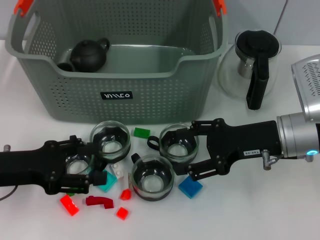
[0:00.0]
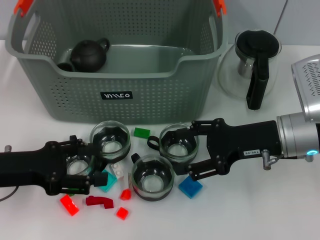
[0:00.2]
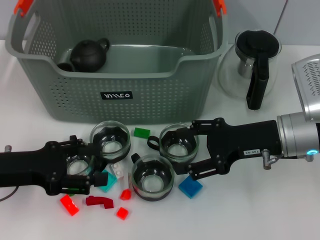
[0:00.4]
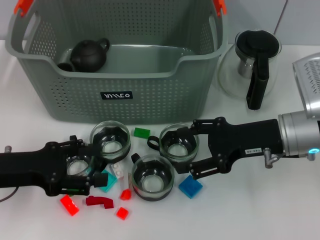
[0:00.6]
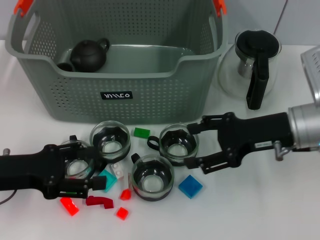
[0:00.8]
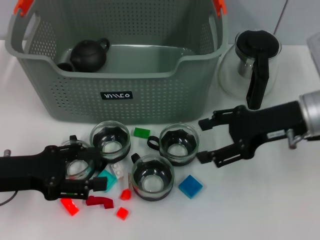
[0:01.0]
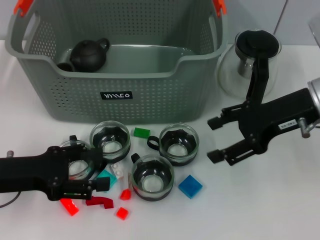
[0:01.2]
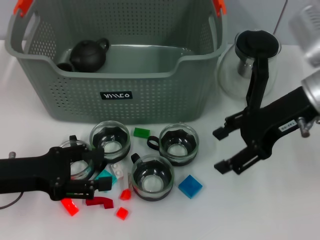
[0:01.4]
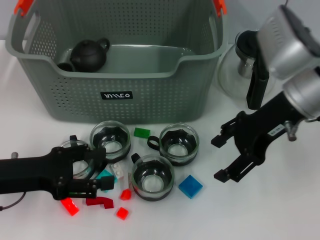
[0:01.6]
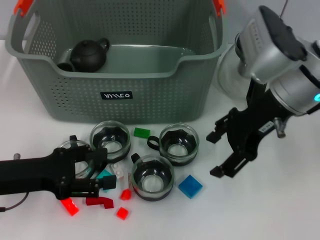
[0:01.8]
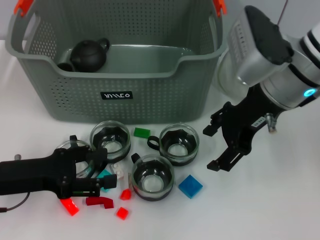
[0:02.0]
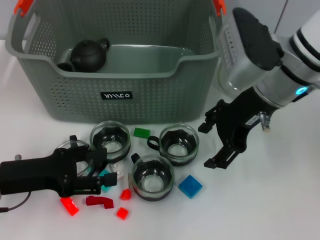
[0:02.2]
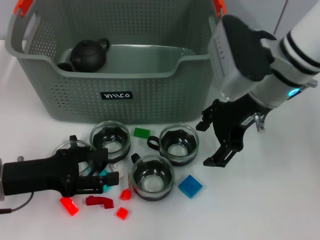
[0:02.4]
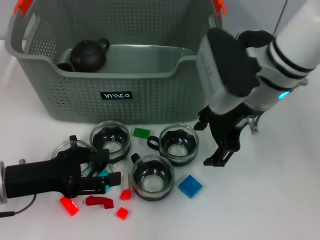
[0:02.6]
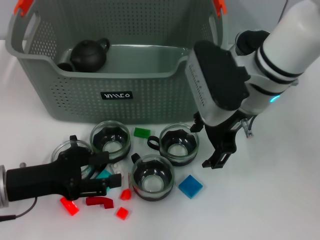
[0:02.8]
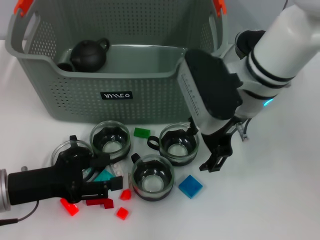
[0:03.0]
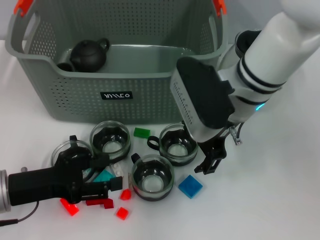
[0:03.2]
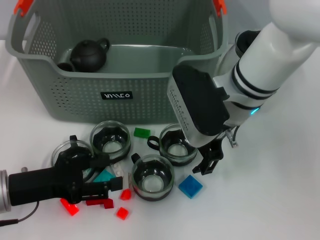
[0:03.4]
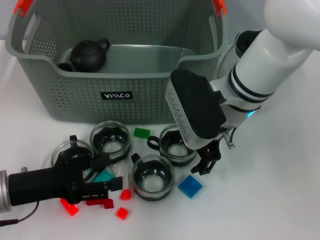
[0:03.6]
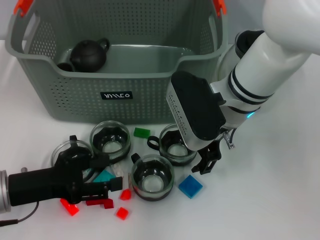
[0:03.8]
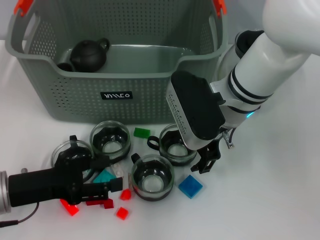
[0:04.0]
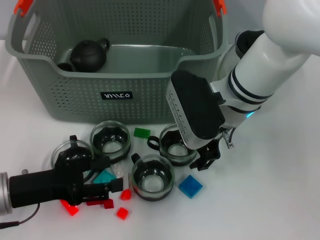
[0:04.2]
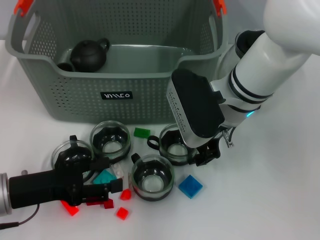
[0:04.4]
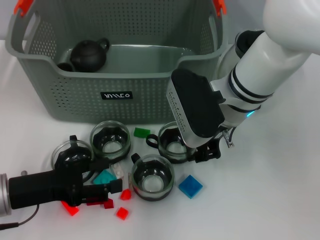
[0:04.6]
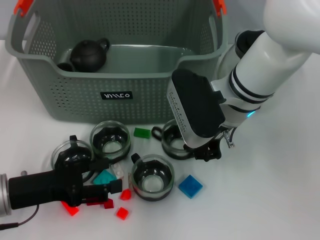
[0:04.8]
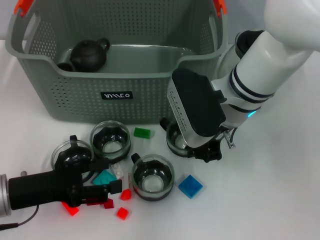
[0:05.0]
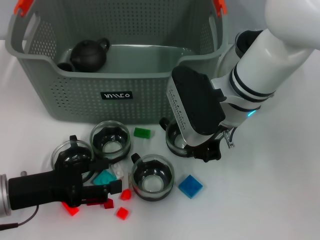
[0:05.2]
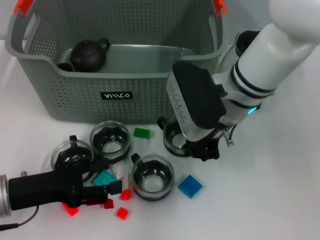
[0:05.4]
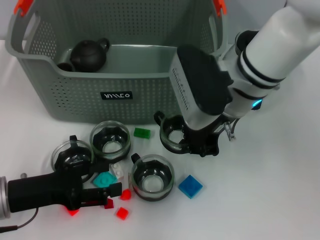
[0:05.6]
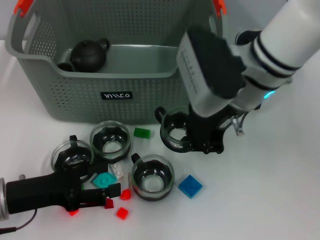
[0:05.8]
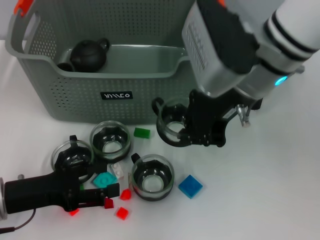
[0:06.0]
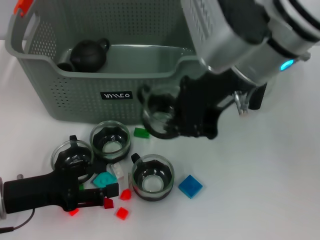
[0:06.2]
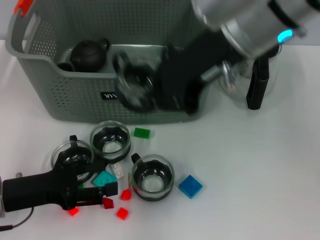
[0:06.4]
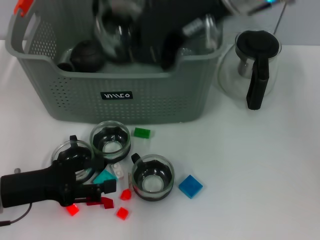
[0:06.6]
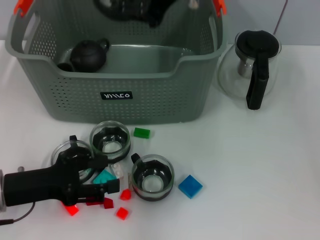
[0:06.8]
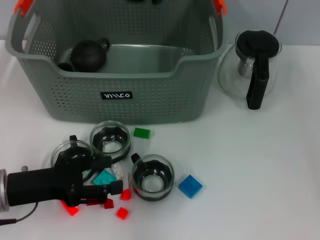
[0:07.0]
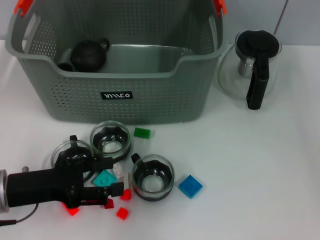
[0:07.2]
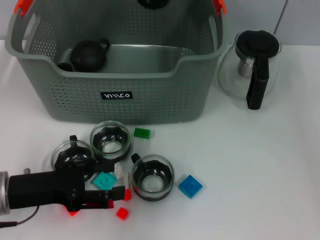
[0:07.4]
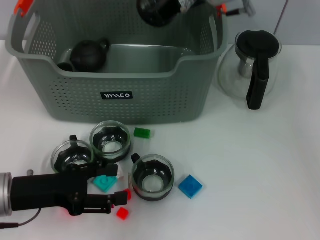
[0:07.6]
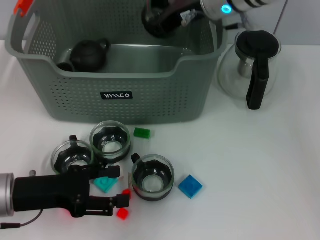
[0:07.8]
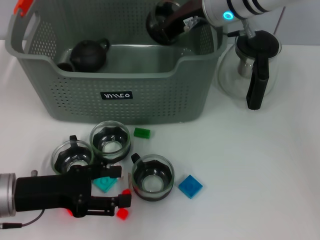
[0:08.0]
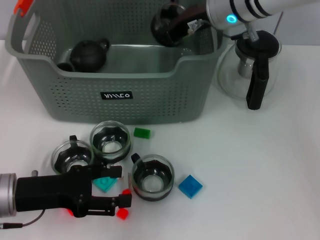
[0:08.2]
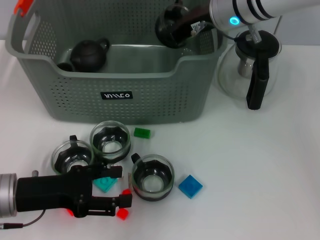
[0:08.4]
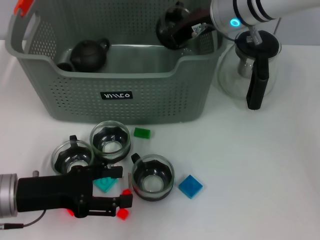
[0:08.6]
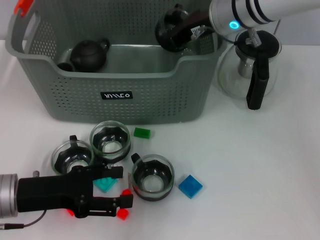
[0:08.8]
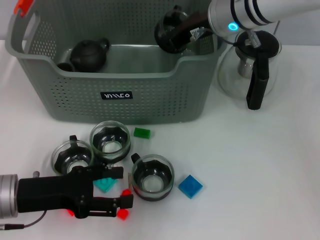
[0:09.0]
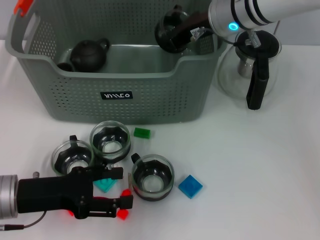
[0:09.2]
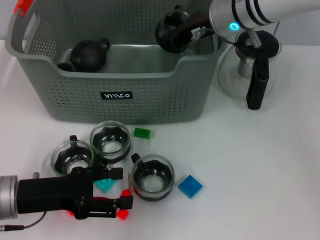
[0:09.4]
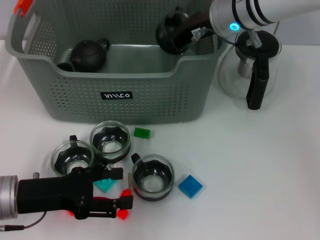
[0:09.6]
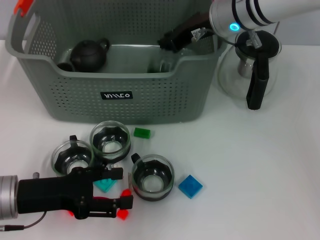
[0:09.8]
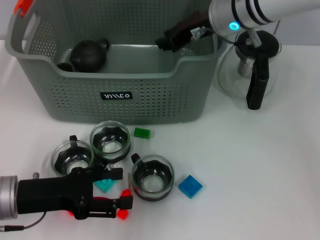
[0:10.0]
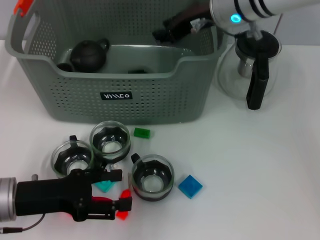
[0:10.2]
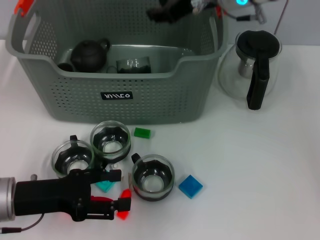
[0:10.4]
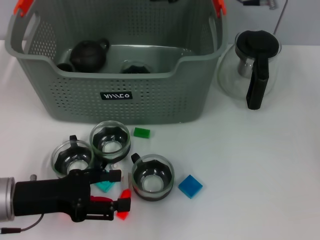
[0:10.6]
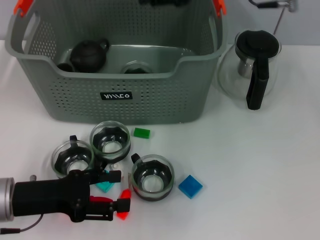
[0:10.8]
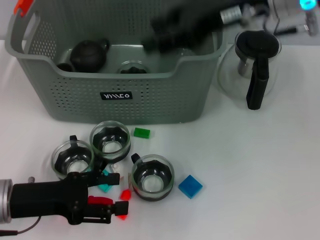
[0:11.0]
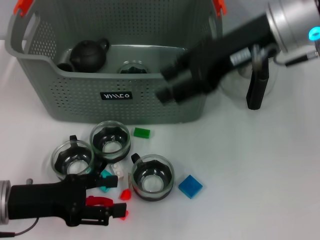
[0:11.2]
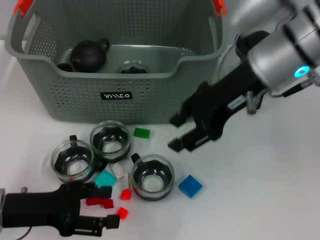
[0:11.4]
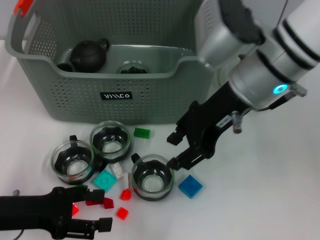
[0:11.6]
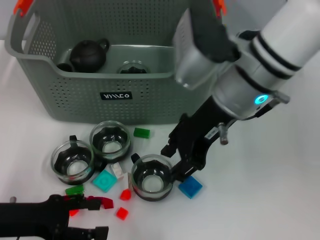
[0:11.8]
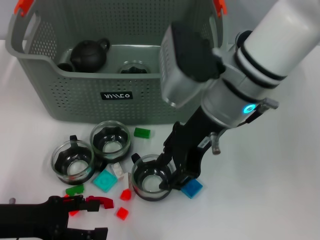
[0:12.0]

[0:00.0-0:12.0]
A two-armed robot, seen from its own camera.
Task of the whole recording: pick up the teacup on the table and place it into the storage bin, pick up the block on the table and place it into the storage bin.
Step, 0:00.0 to 0:05.4: Grasp the cup with right gripper.
Step, 0:05.8 to 0:10.0: Place the cup in the storage box with right gripper.
0:00.0 to 0:01.6: The right gripper is displaced upward by about 10 cm.
0:01.6 to 0:03.0: The right gripper travels to the left by roughly 10 cm.
0:03.0 to 0:04.4: The grippers make only small movements.
0:04.4 to 0:06.0: The right gripper is displaced upward by about 10 cm, and closes up.
0:06.0 to 0:07.6: The right gripper shifts roughly 10 cm forward.
0:07.6 to 0:10.4: The grippers move only a little.
0:10.4 to 0:12.0: The right gripper goes approximately 10 cm backward.

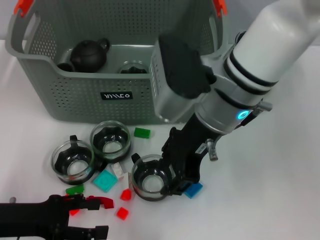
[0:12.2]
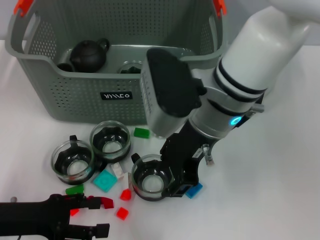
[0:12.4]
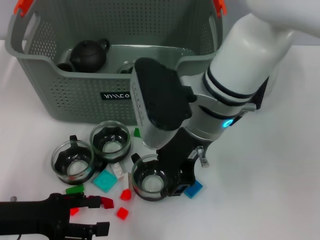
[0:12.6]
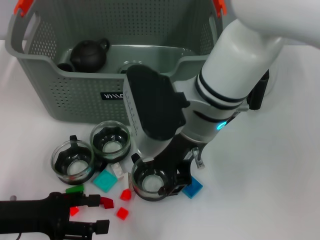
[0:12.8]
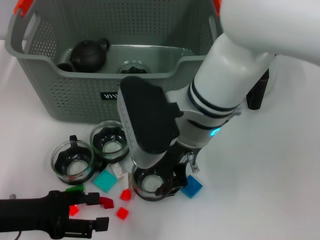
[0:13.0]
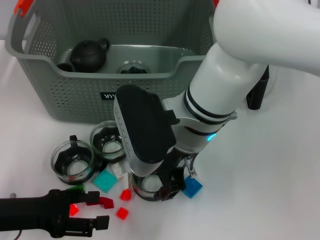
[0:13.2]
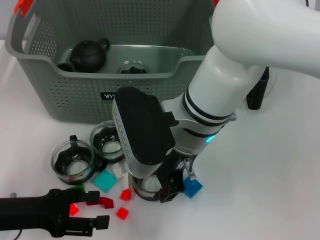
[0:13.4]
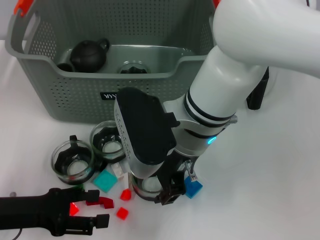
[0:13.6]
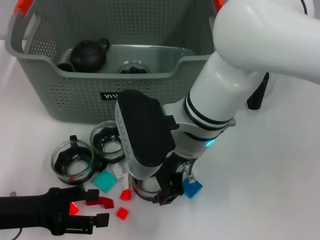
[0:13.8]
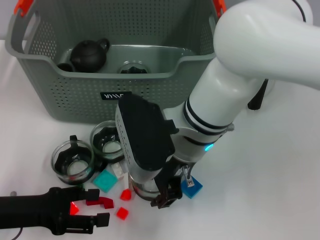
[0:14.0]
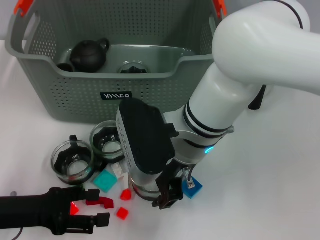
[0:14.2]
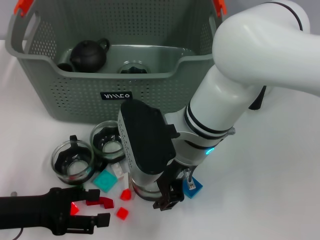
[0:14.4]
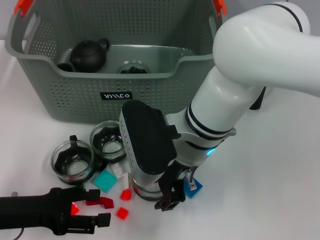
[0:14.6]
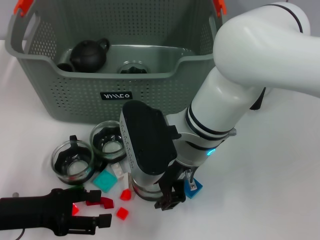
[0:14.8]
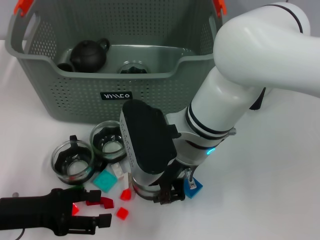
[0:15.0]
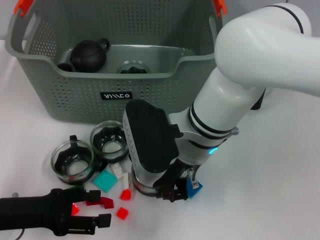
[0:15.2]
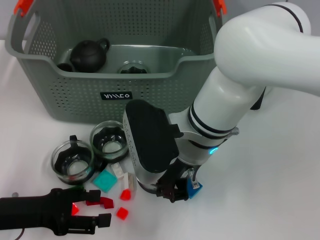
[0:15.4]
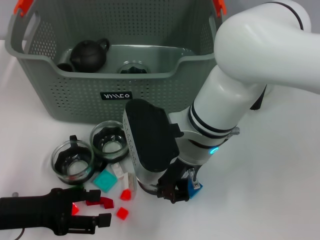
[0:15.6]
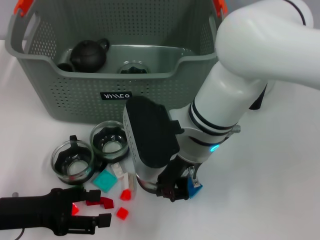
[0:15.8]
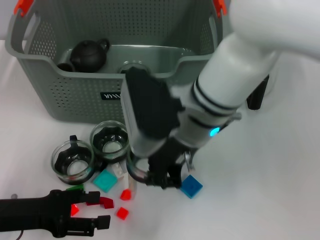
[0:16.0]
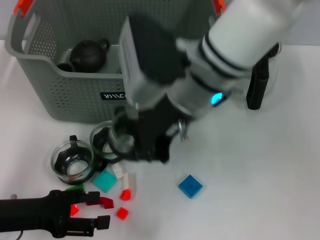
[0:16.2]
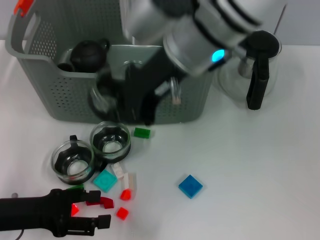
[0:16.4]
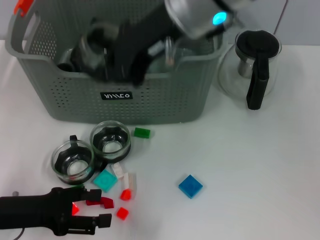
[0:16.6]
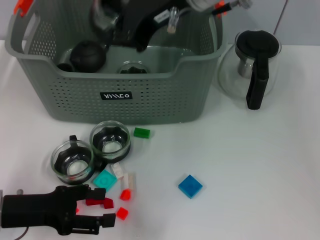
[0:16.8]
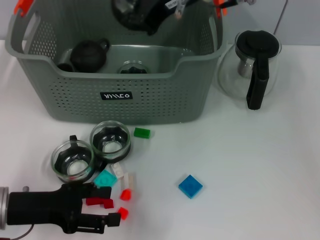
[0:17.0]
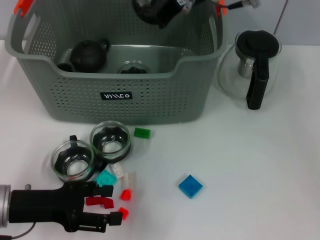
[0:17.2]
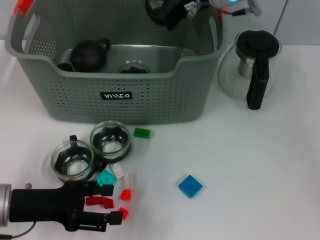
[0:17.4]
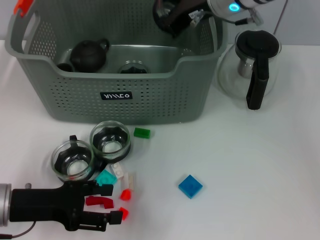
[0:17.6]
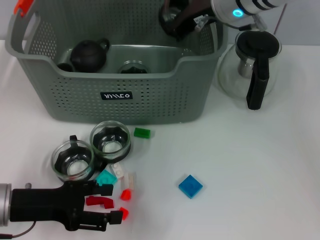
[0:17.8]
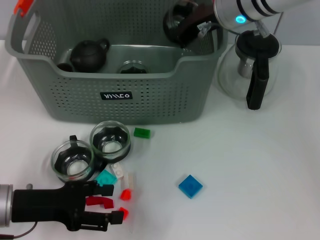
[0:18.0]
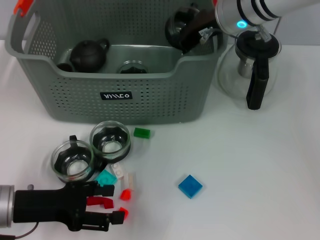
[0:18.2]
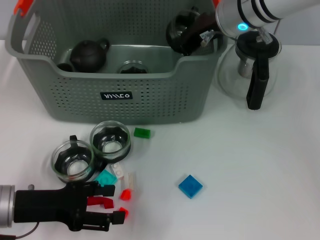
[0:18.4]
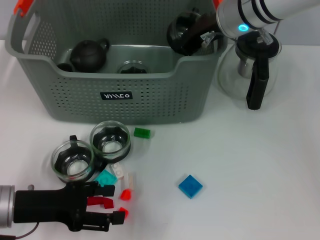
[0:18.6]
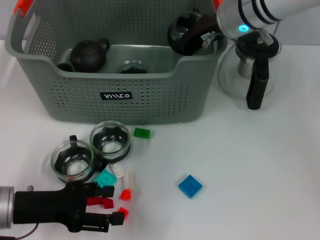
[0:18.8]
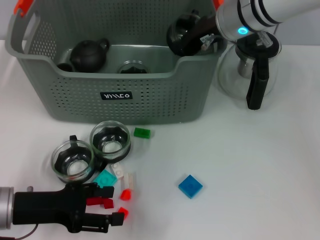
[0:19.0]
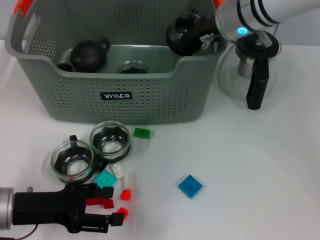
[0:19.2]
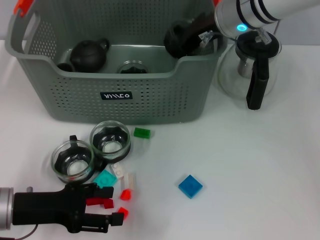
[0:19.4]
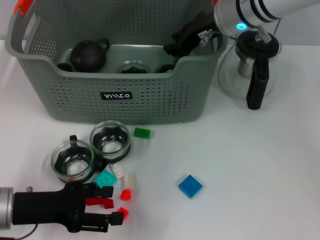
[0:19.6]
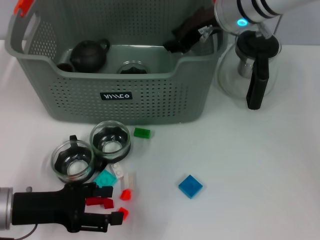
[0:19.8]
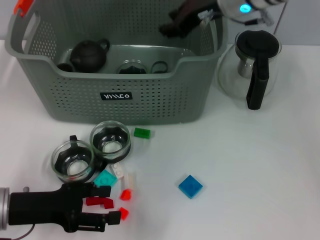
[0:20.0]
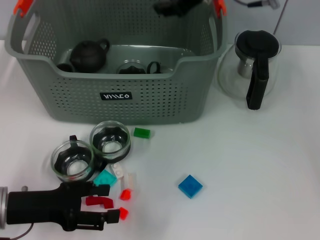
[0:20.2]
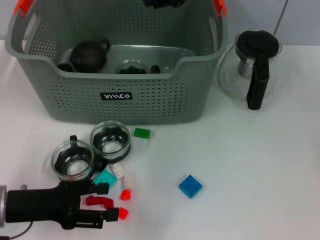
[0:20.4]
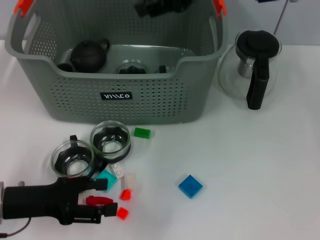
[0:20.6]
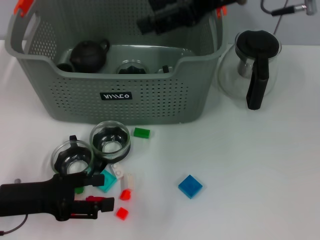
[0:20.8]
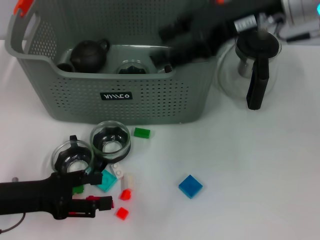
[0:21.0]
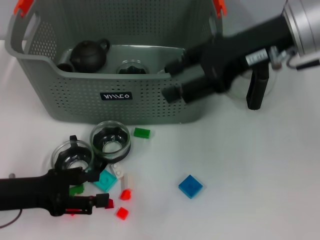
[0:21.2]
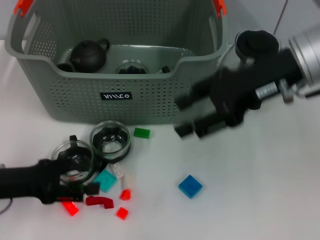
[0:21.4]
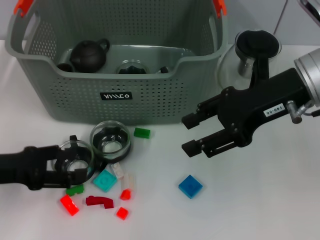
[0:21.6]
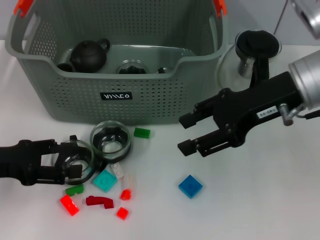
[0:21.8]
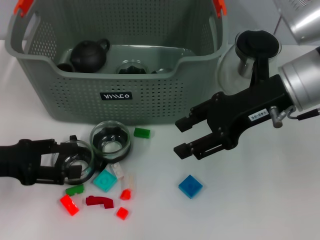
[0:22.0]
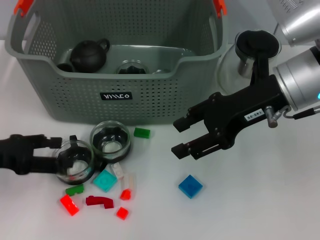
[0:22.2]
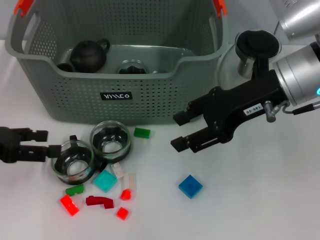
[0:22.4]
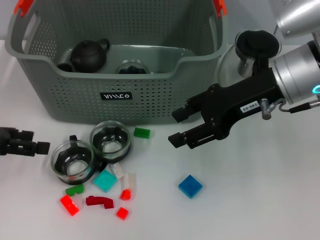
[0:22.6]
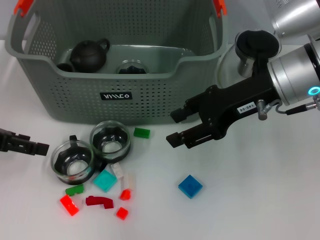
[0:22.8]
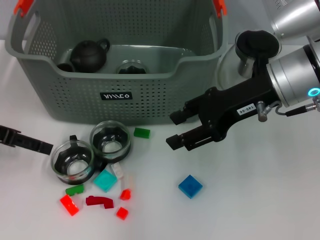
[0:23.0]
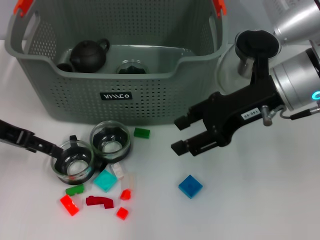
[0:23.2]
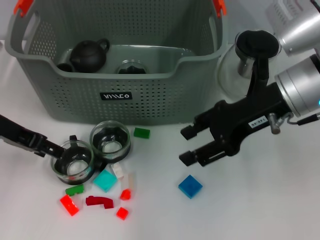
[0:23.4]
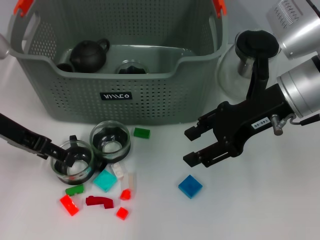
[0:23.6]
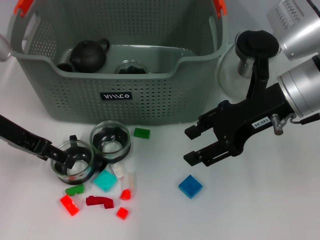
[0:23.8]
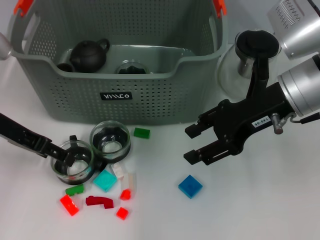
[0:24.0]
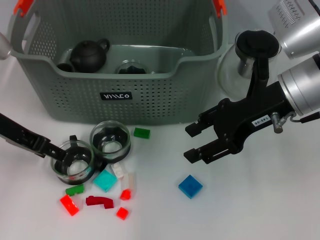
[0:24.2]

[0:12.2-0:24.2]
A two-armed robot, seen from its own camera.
Task of the whole recording: pick up the teacup on the table and place it into the storage bin, pick up the block on the table and place it into the storage bin.
Step, 0:12.2 to 0:16.0: Grasp the cup with right gripper.
Step, 0:16.2 to 0:19.8: Place the cup in the storage box with right gripper.
0:12.2 to 0:13.8: The right gripper shifts by roughly 5 cm.
0:13.8 to 0:15.2: The grippers move only a little.
0:15.2 to 0:16.6: The right gripper travels upward by some 15 cm.
0:16.6 to 0:18.2: The right gripper shifts approximately 15 cm forward, downward and to the right.
0:18.2 to 0:19.8: Both grippers stay put.
0:19.8 to 0:21.2: The right gripper shifts approximately 10 cm backward and to the right, and opens up.
0:21.2 to 0:22.6: The right gripper heads downward, covering approximately 5 cm. Meanwhile the left gripper shifts about 10 cm upward, to the left and forward.
0:22.6 to 0:24.2: The left gripper travels to the right and forward by approximately 10 cm.
